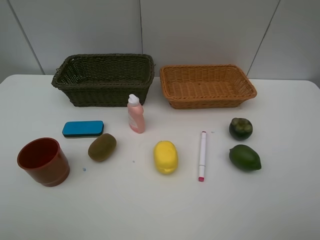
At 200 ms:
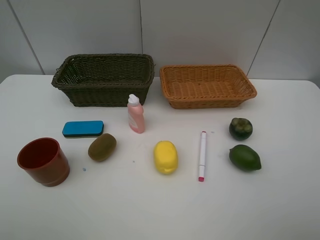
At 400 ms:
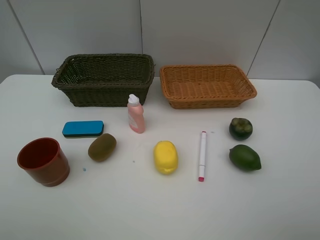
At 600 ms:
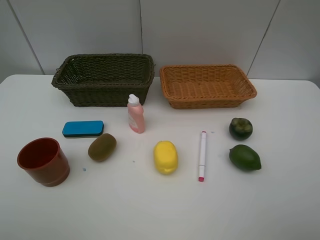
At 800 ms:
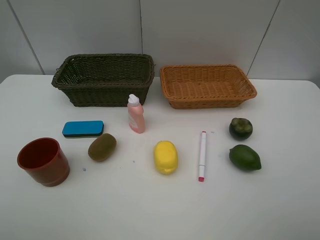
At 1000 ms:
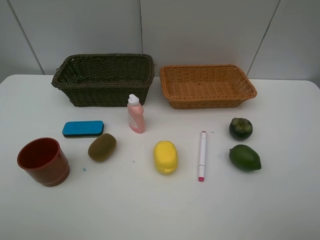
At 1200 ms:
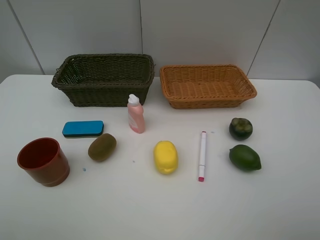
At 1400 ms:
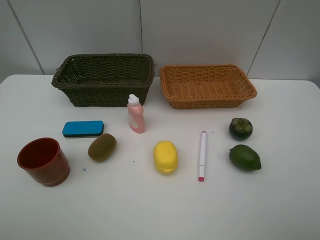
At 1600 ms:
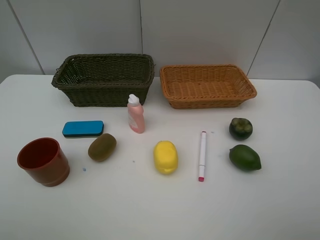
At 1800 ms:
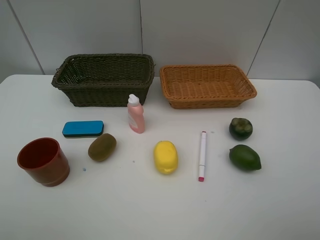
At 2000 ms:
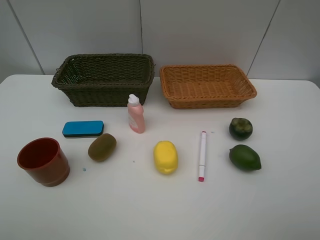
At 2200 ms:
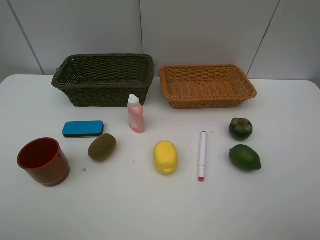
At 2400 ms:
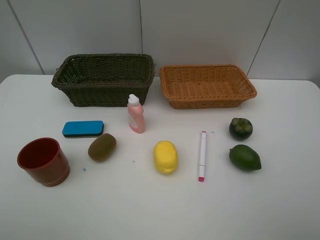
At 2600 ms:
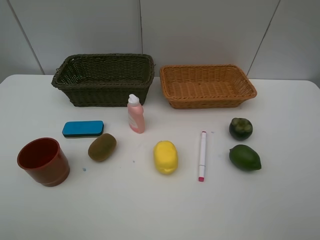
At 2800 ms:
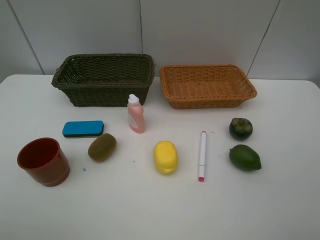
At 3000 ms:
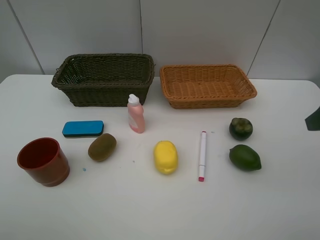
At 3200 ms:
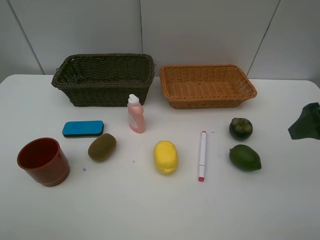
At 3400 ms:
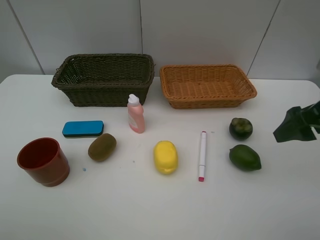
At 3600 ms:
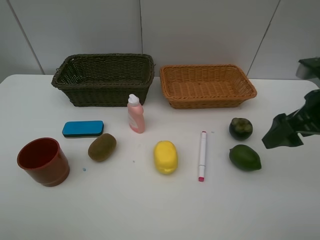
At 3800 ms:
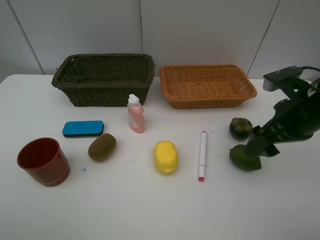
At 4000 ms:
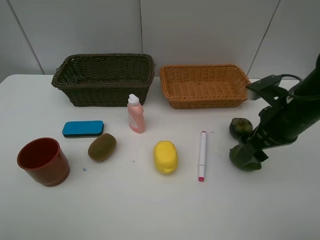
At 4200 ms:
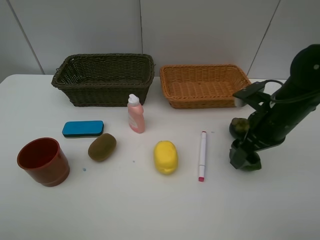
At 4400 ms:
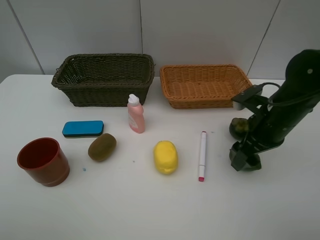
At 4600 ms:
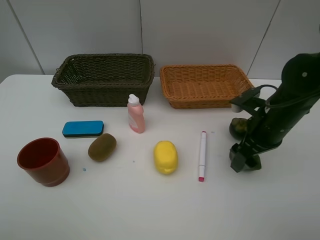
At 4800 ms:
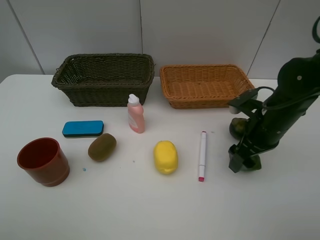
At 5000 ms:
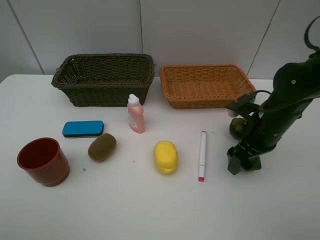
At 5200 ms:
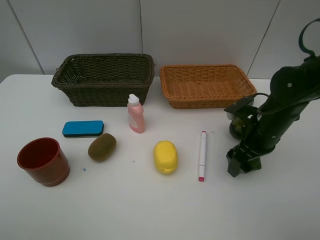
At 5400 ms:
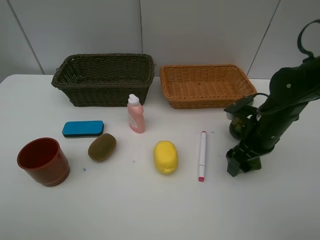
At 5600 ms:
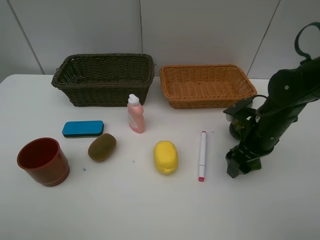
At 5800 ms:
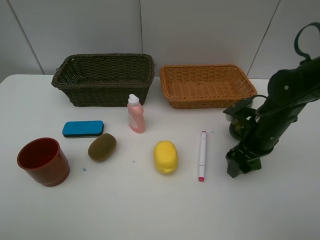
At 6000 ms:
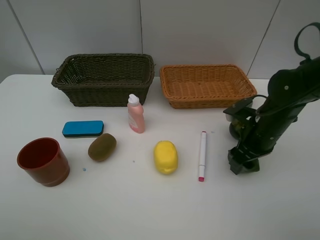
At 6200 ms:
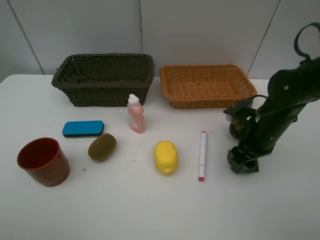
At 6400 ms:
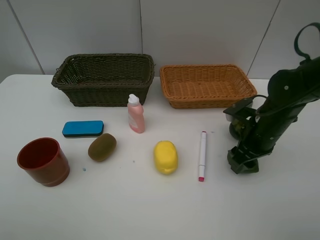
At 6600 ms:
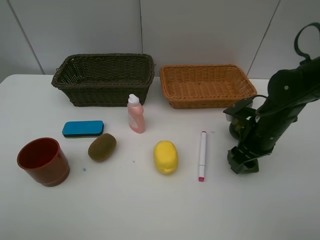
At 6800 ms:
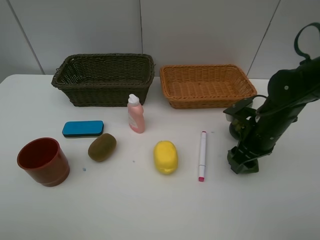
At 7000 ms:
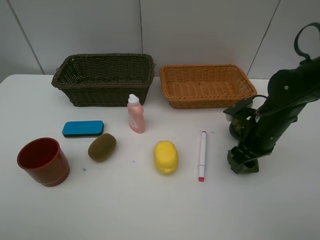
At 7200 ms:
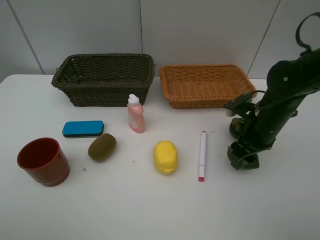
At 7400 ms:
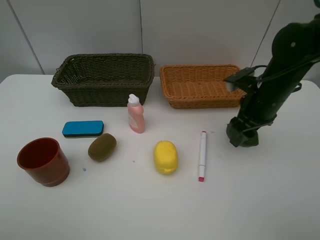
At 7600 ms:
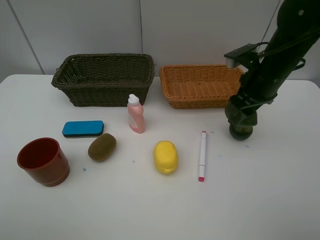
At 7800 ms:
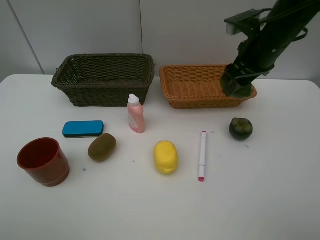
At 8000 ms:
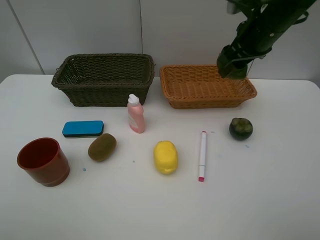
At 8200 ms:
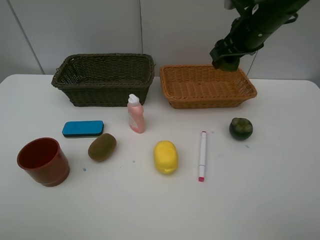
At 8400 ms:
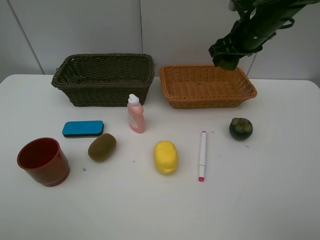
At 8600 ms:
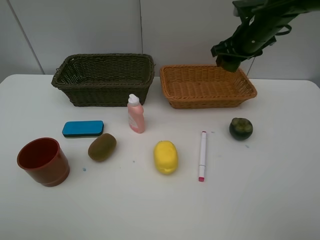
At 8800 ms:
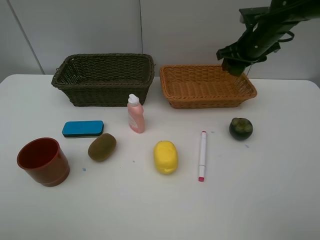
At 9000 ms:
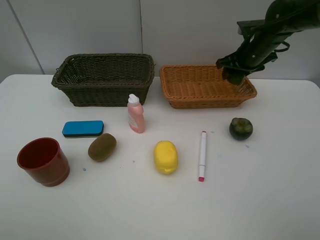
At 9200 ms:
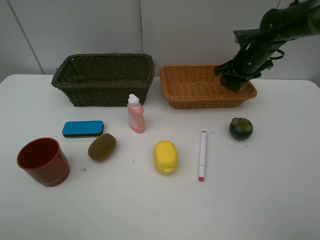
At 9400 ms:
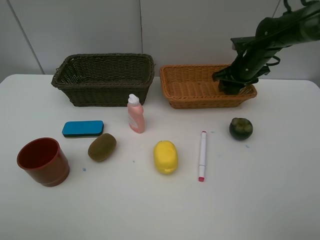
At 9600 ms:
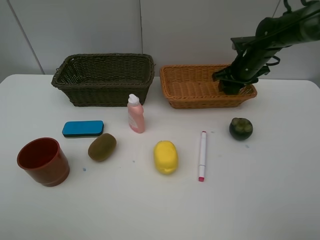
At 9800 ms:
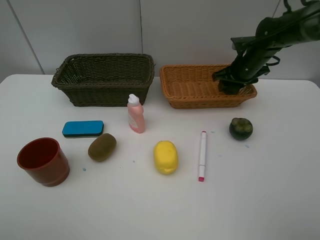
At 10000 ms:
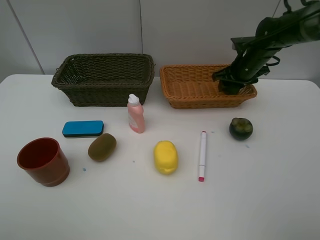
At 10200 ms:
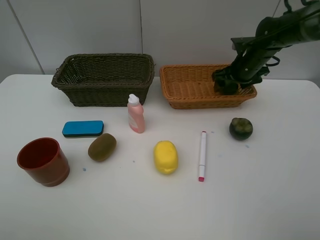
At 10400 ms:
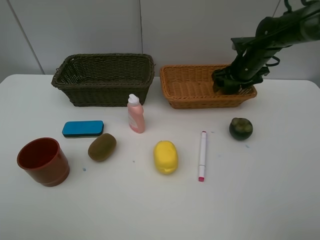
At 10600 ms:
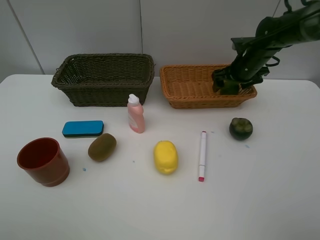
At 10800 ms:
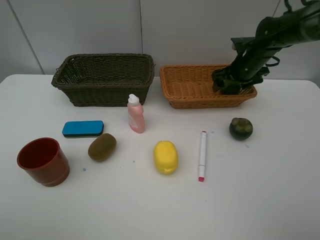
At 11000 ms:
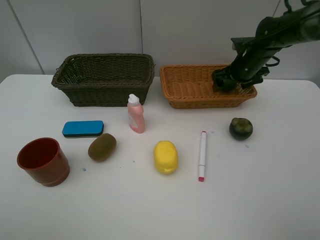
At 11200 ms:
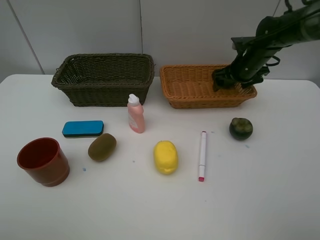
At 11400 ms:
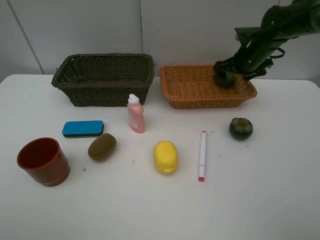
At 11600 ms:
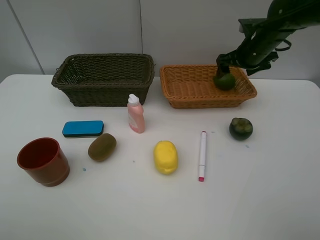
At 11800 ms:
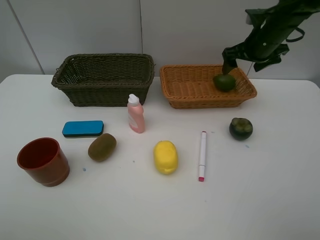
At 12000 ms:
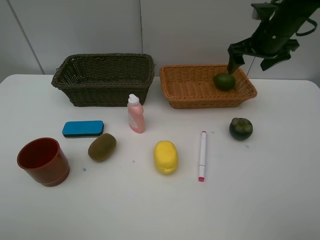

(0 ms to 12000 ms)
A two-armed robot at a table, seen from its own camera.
Task of the whole recording: Place multiple objects separately in different baskets.
Step, 0 ms - 7200 ms: Pick up the lime with right gripper.
Step, 7400 ms - 11600 ms: Place the lime in the light basket with right gripper.
0 ms - 1600 ms: The two grippers keep their place.
3000 ms - 4400 ms: The right gripper is displaced downward, forward and to the left by roughly 15 cm.
4400 ms - 6000 ms: The right gripper closes its fingers.
6000 ms - 7600 ms: The right gripper is displaced upward and forward by about 10 cm.
7600 ms - 9000 ms: The right gripper travels forward by roughly 15 cm.
9000 ms - 10400 ms: The right gripper opens.
10400 ms - 12000 ms: The right gripper travels upward by approximately 10 cm.

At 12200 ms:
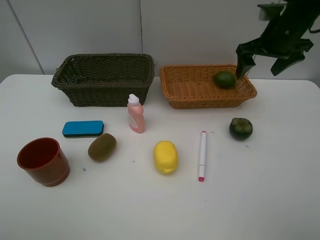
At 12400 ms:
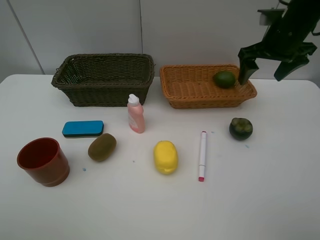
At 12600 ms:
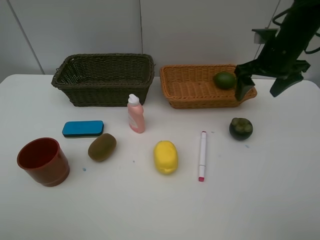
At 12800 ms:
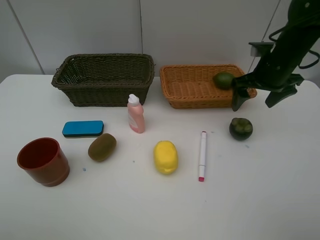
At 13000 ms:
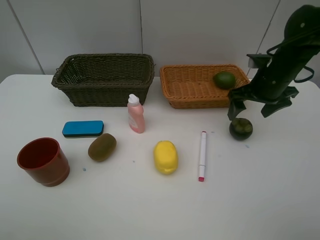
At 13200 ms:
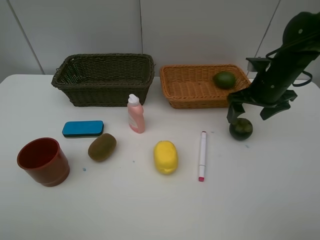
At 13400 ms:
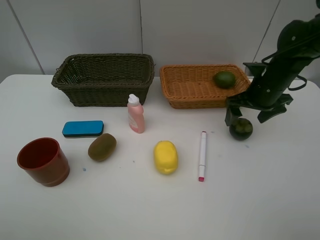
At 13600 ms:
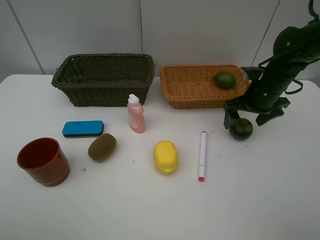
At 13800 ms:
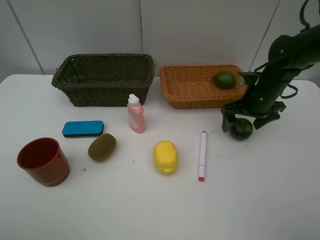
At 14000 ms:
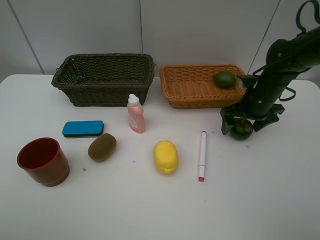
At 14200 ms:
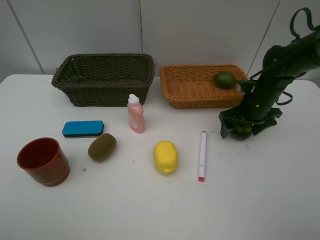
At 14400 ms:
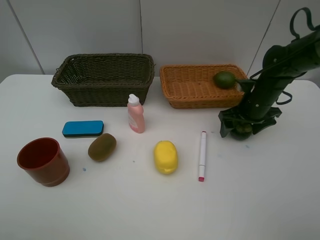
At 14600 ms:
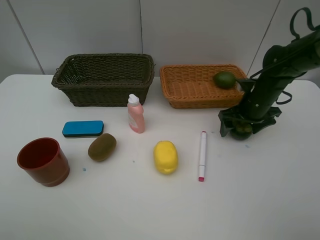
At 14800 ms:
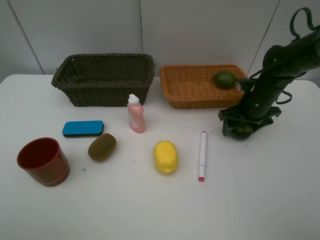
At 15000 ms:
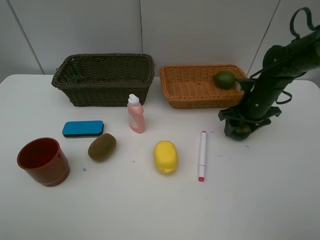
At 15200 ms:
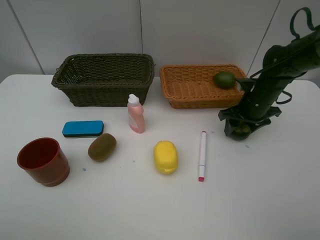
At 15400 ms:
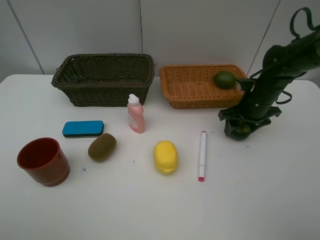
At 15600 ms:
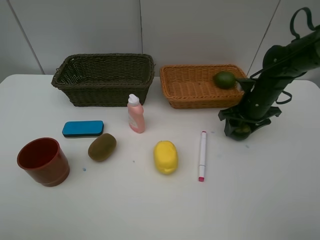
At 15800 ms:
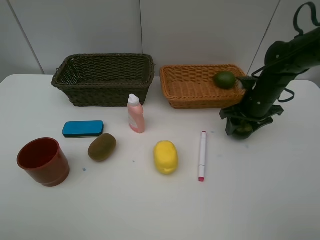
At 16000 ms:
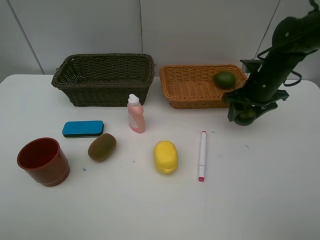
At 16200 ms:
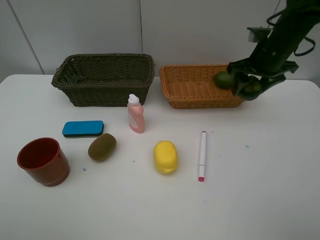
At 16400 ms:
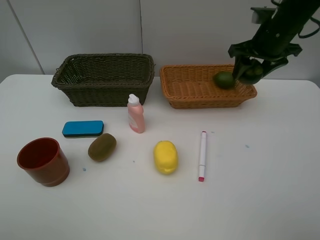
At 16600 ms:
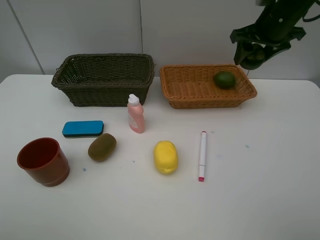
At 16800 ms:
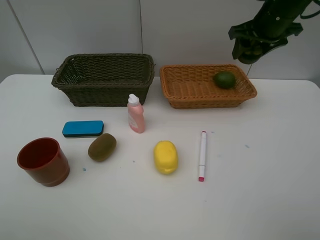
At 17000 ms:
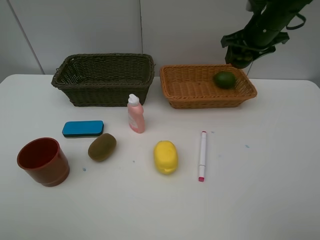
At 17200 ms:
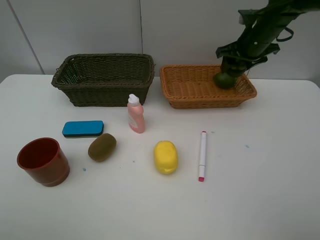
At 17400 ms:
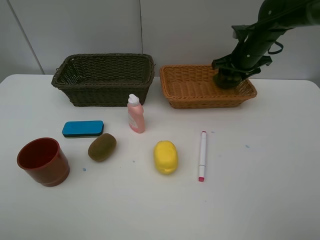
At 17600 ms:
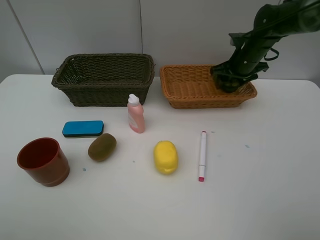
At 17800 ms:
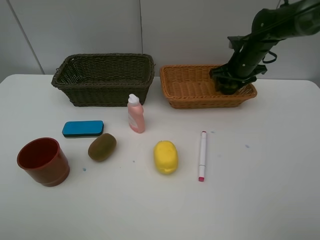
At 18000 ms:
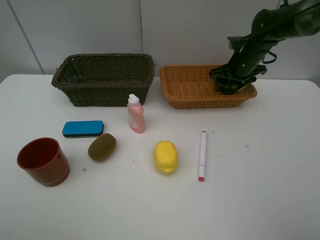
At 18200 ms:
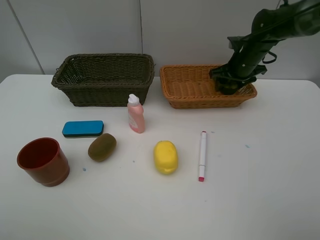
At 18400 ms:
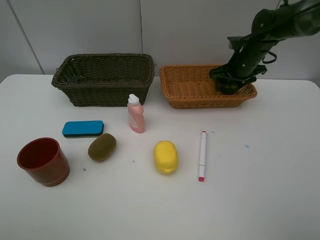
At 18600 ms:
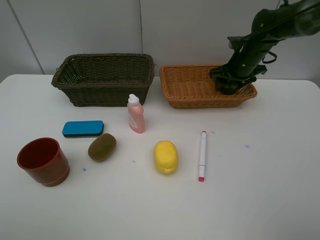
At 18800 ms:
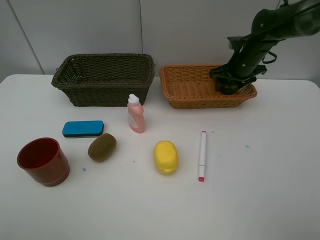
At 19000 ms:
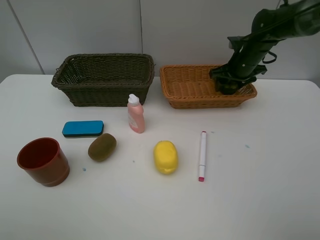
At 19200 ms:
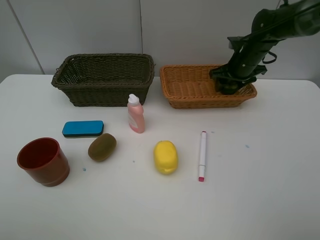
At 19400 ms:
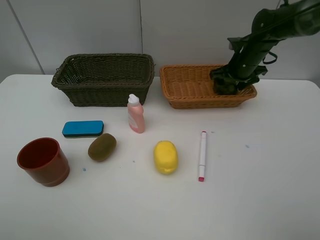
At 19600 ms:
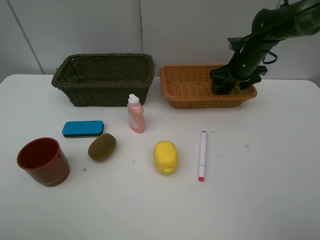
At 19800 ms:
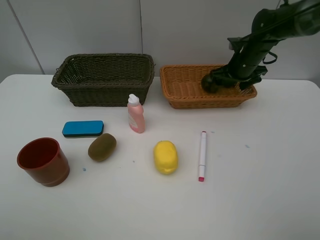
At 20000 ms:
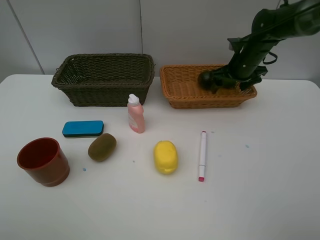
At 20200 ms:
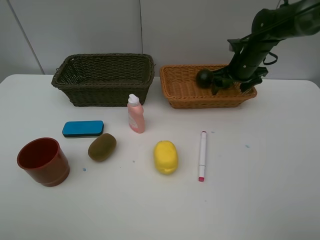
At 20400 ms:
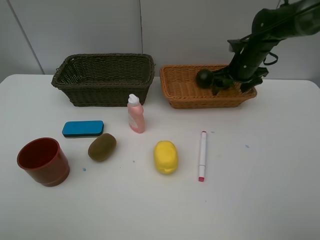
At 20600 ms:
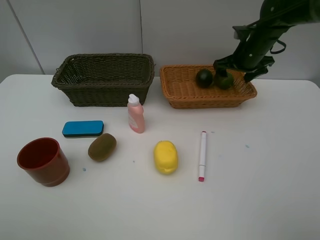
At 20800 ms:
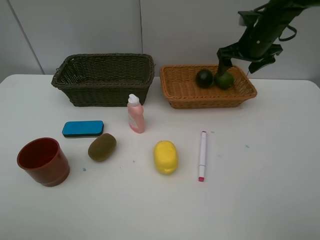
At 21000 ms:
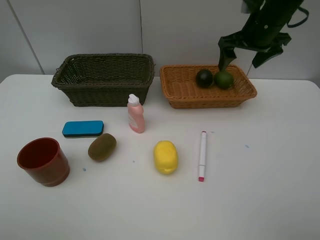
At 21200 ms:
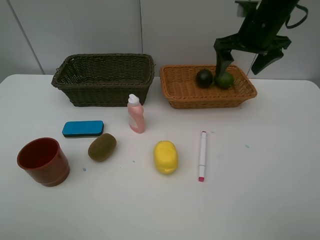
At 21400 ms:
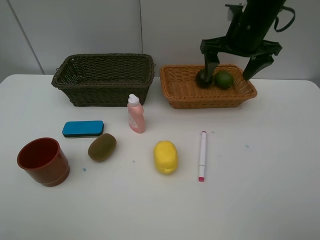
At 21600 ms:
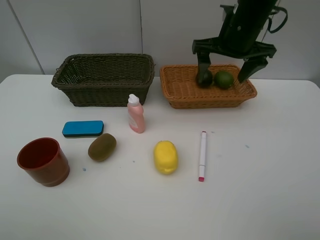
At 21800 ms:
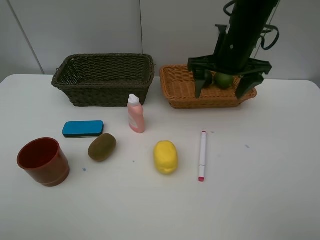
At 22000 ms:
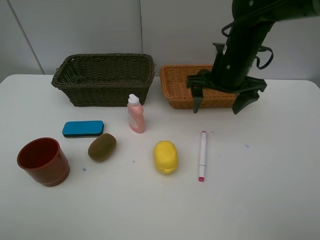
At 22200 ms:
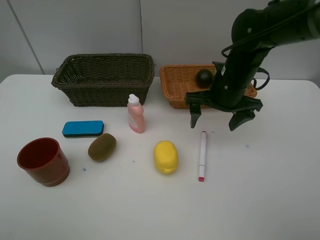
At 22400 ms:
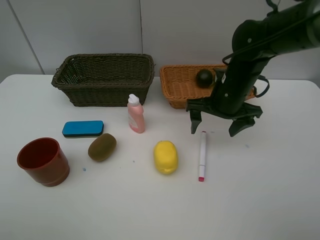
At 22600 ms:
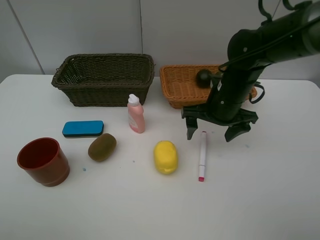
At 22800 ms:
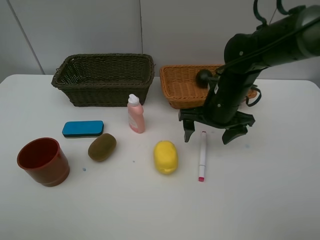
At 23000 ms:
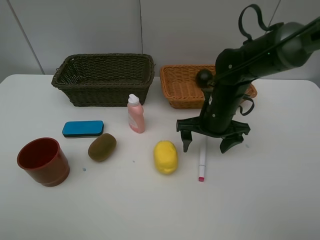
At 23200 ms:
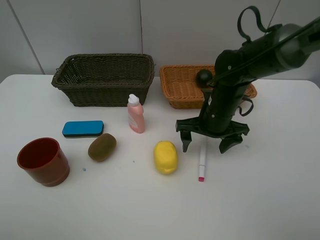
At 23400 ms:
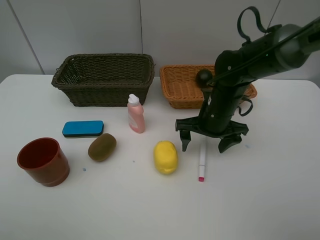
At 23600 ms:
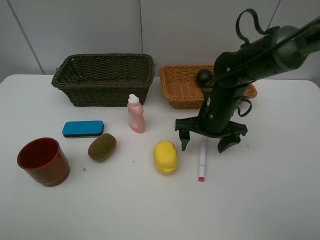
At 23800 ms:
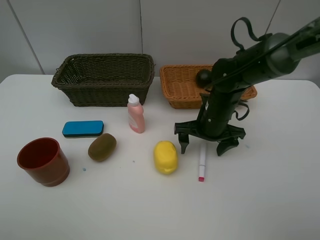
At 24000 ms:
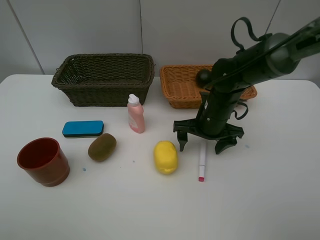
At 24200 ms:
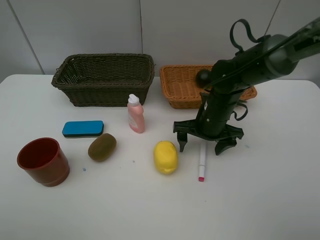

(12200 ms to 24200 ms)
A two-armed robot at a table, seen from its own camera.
Task of the whole recording: Place multiple objects separately in different baskets.
Step, 12200 ms - 15800 ms: Pick up the mangosteen with right gripper.
Step, 16000 ms - 20400 ms: Place the mangosteen in the light basket with right gripper.
12200 ms - 13800 ms: The right gripper travels downward by roughly 15 cm.
13800 ms - 15200 ms: The right gripper closes up.
15200 ms - 16600 ms: The right gripper travels upward by roughly 15 cm.
16600 ms - 18200 ms: The right gripper moves downward and forward, some 15 cm.
18200 ms - 19800 ms: The right gripper opens its fingers.
19800 ms - 21200 ms: The right gripper heads upward and backward, covering some 15 cm.
21200 ms - 22600 ms: The right gripper moves downward, backward and to the left, some 15 cm.
22600 ms - 24200 ms: The right gripper moves downward, roughly 5 cm.
